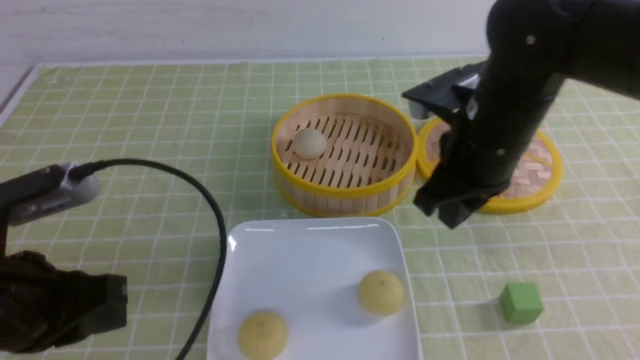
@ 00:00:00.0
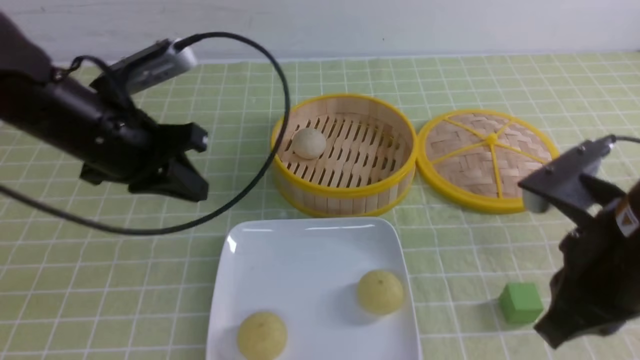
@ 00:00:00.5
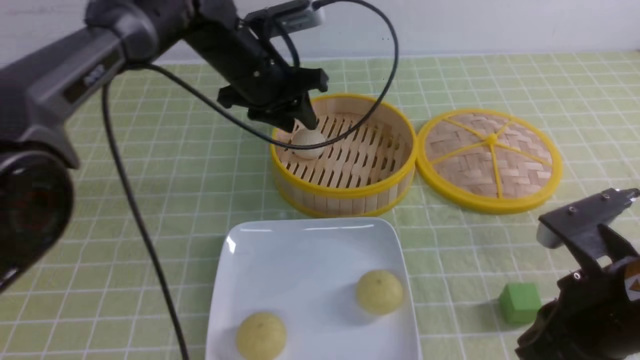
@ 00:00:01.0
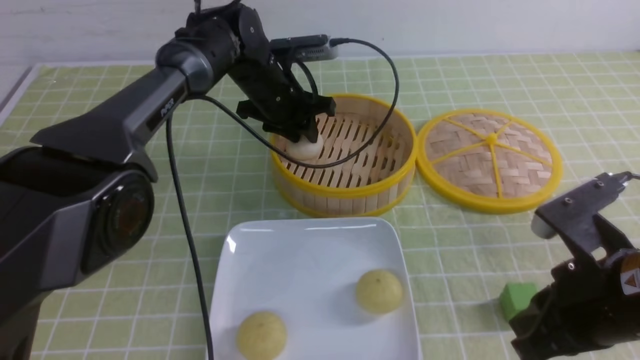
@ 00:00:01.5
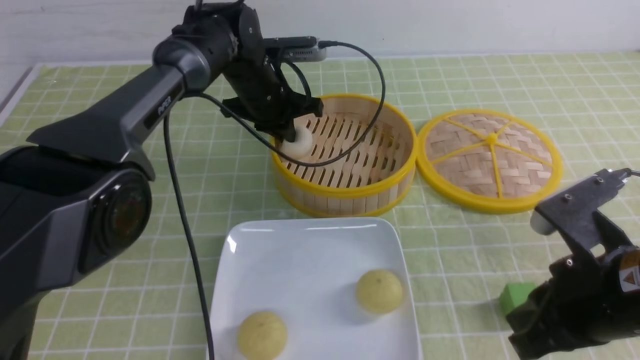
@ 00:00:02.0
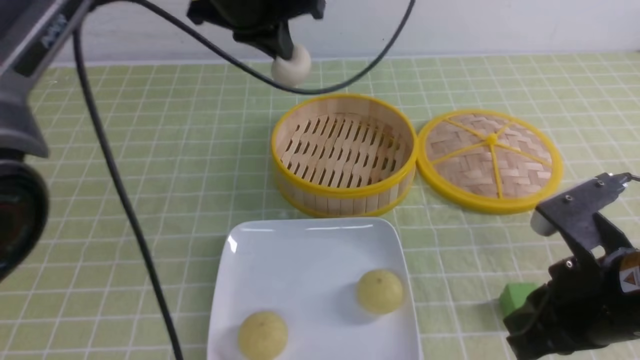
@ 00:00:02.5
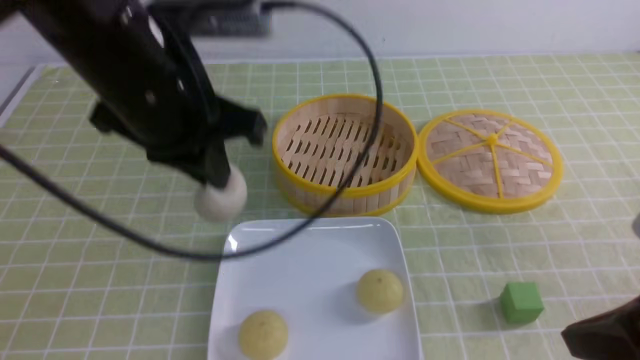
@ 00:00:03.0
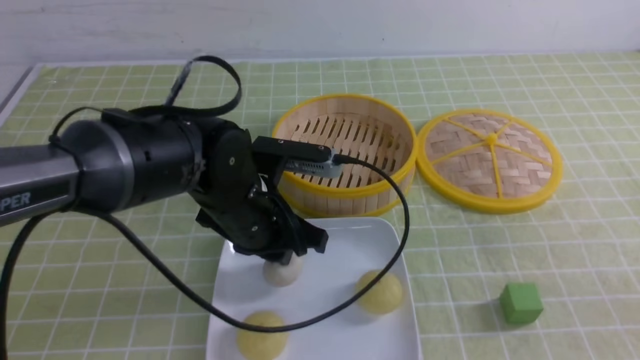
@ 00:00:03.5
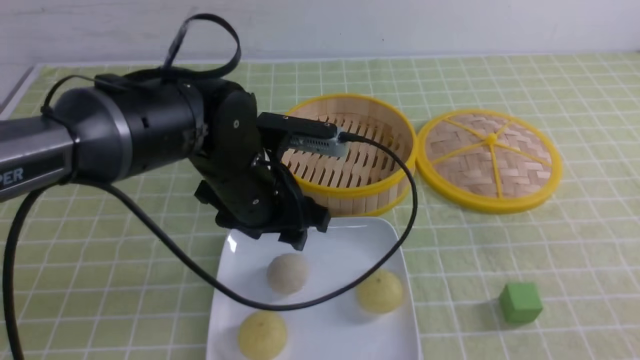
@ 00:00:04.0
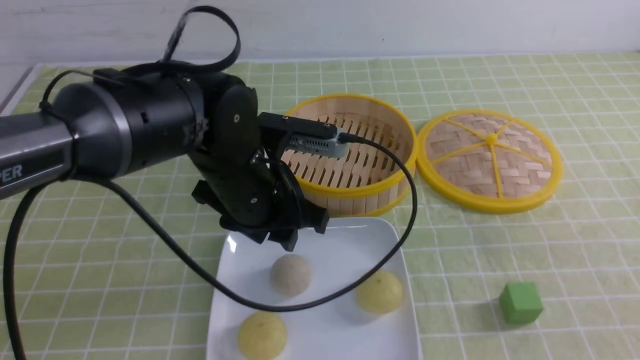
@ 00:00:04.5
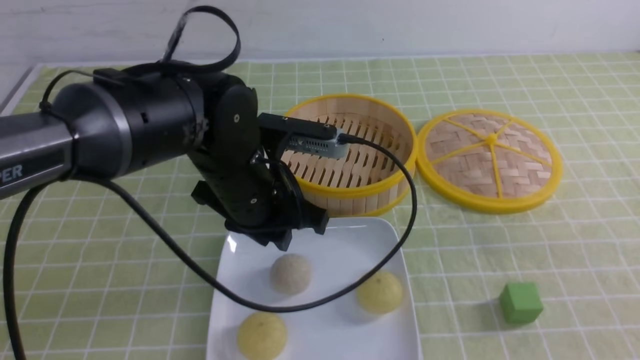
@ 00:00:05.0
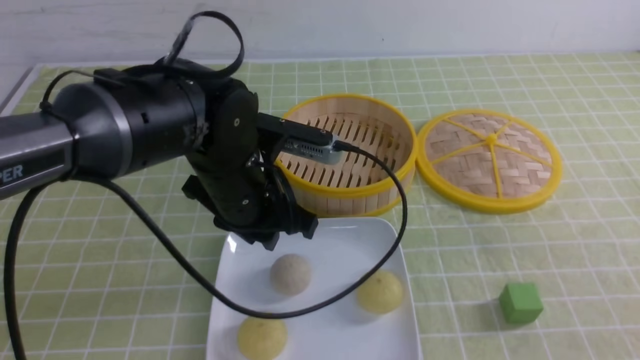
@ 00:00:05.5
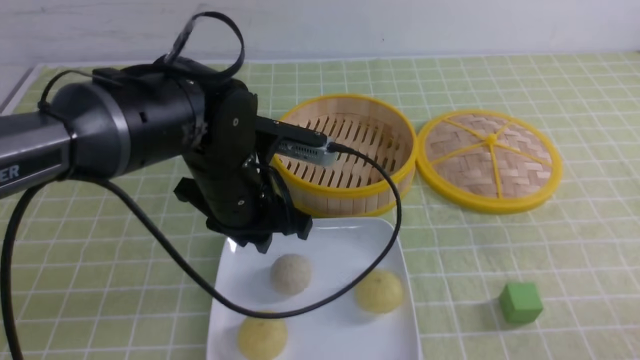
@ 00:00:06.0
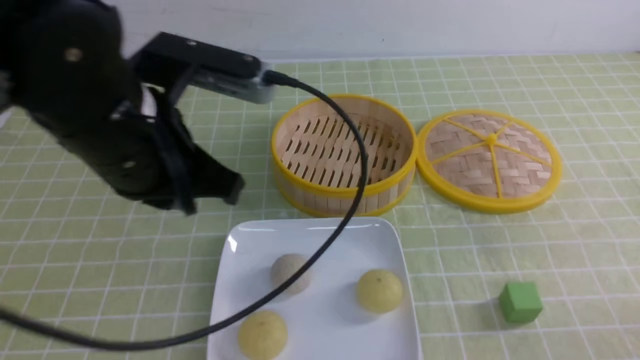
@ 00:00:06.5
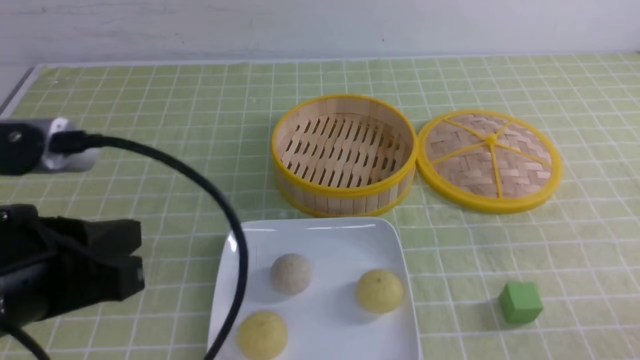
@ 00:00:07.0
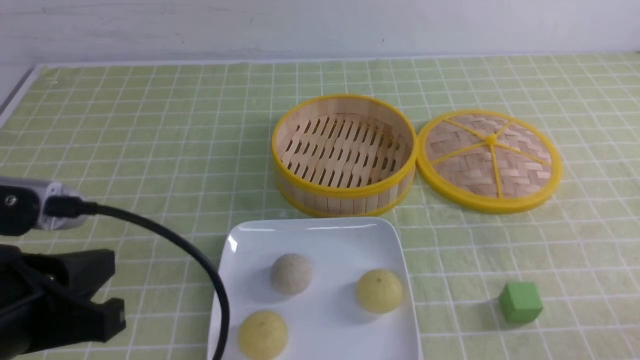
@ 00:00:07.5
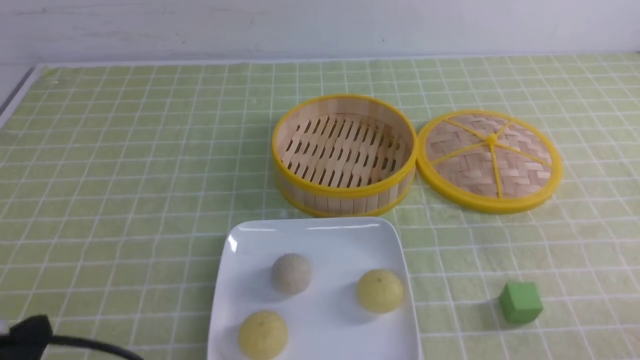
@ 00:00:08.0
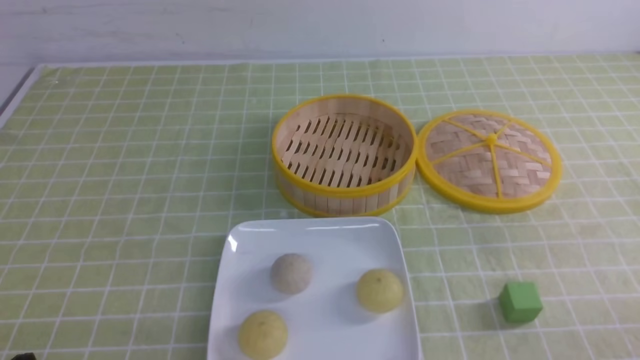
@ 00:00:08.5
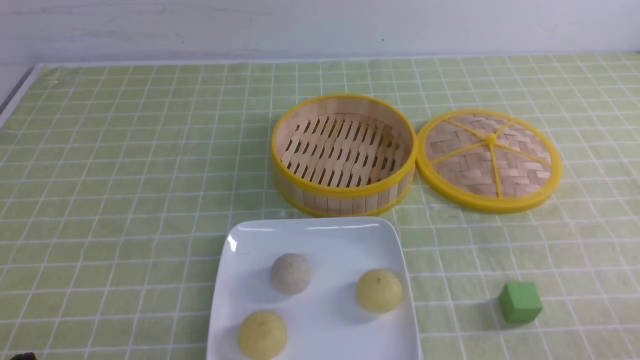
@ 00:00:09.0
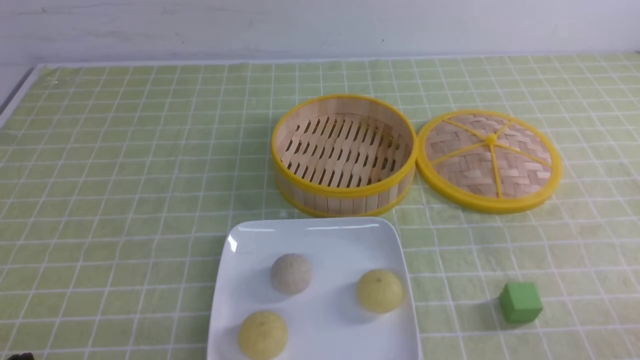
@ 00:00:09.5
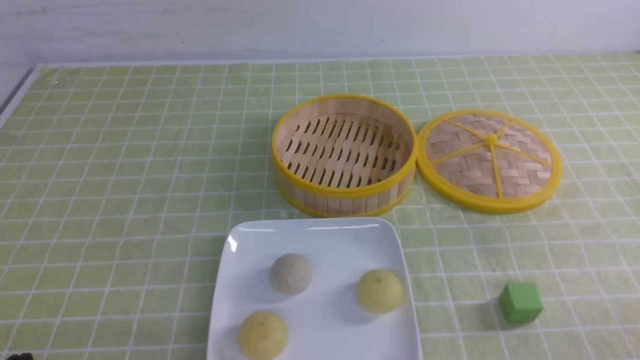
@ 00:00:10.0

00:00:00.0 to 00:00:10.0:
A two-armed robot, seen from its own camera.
Step, 00:00:00.0 to 00:00:02.0: use the left arm to grab the steamed stuffed bun that is closest to it.
Step, 00:00:02.5 to 00:00:03.5: use the left arm to put the steamed stuffed bun into the plate.
00:00:00.0 to 00:00:02.0: The left gripper shifts roughly 35 cm forward and to the right, and opens and closes again. Meanwhile the right gripper shifts some 15 cm backward, to the right and downward, and closes up.
00:00:02.0 to 00:00:04.0: The left gripper is displaced backward by about 20 cm, and opens its fingers, while the right gripper goes about 20 cm backward, to the right and upward.
00:00:04.0 to 00:00:06.0: The right gripper moves downward, about 15 cm; the left gripper closes up.
00:00:06.0 to 00:00:08.0: The left gripper is displaced backward and to the left by roughly 30 cm, and closes up.
00:00:08.0 to 00:00:10.0: The left gripper ends up some 5 cm from where it was.
